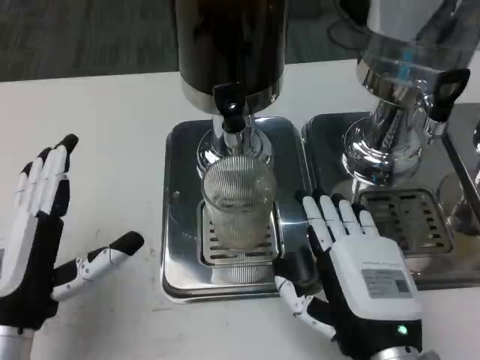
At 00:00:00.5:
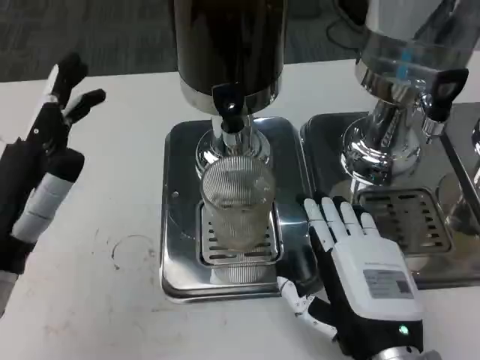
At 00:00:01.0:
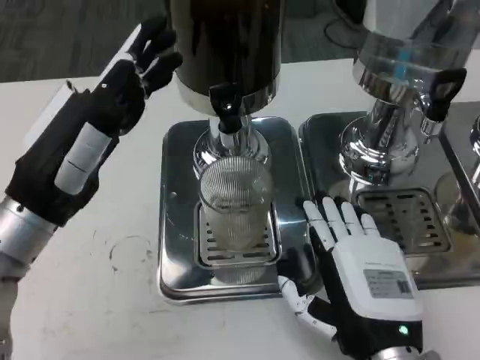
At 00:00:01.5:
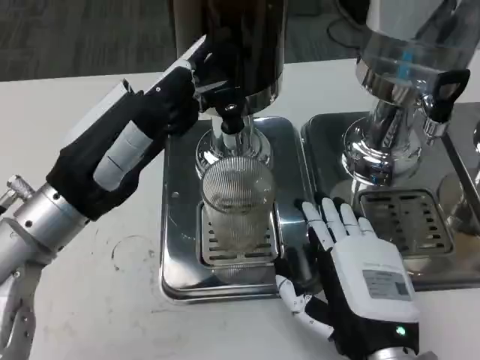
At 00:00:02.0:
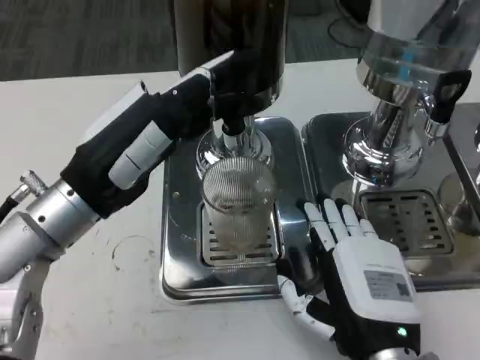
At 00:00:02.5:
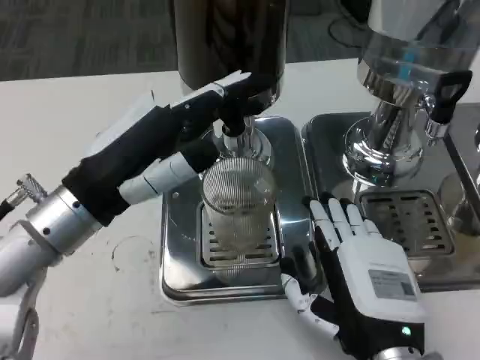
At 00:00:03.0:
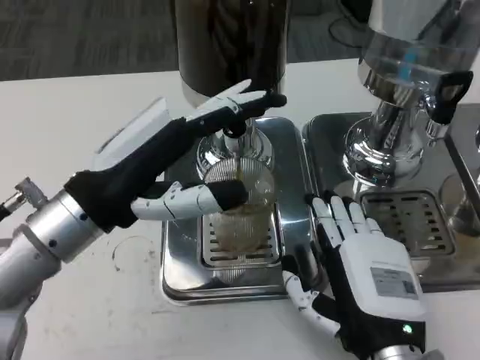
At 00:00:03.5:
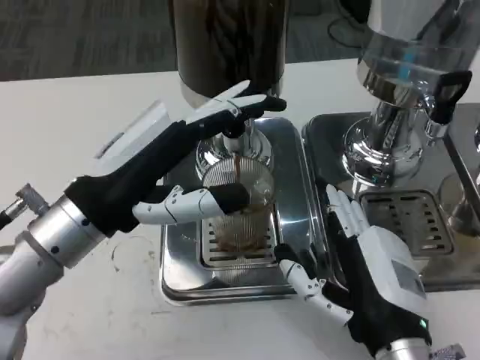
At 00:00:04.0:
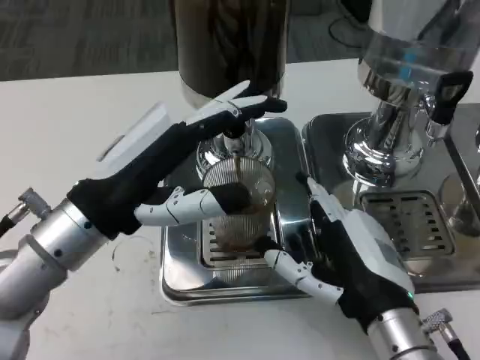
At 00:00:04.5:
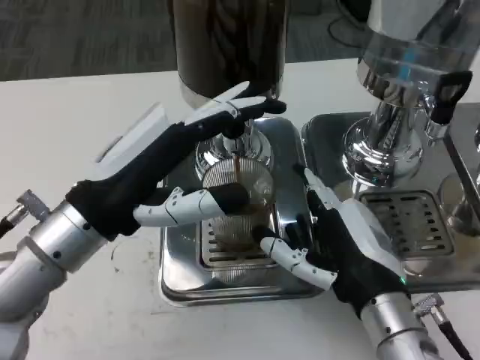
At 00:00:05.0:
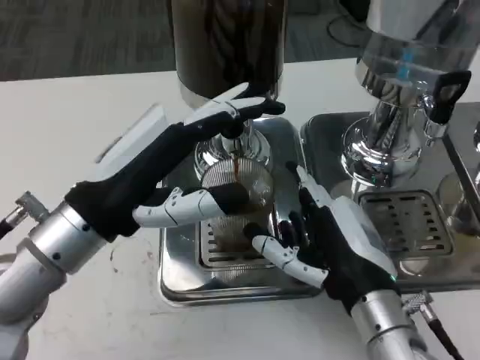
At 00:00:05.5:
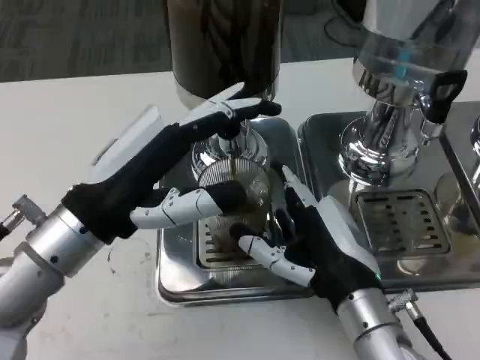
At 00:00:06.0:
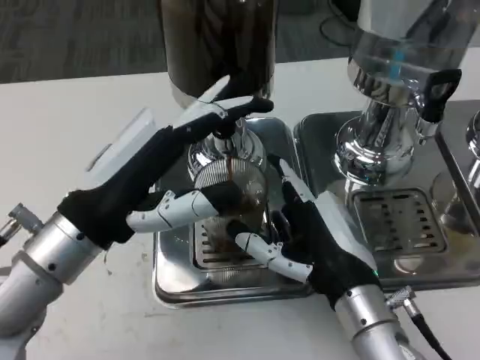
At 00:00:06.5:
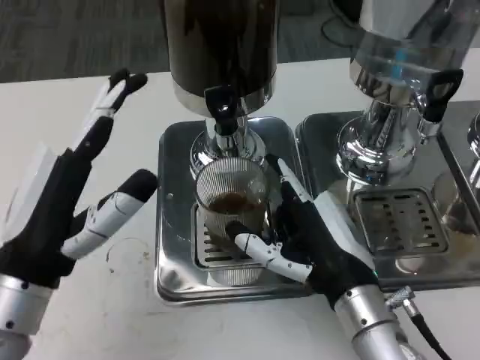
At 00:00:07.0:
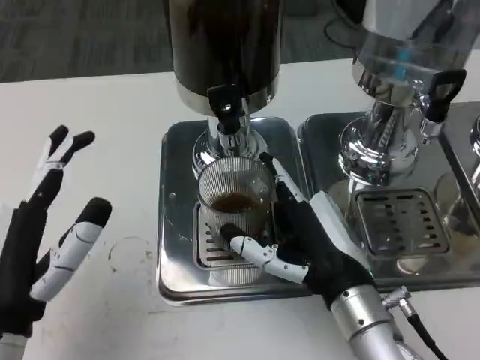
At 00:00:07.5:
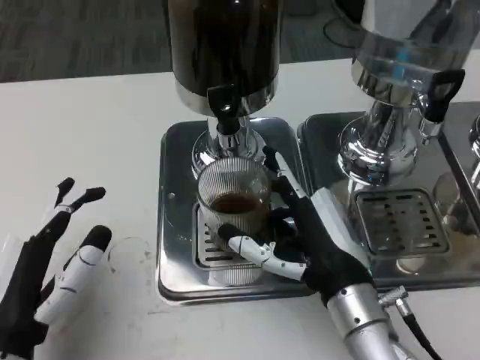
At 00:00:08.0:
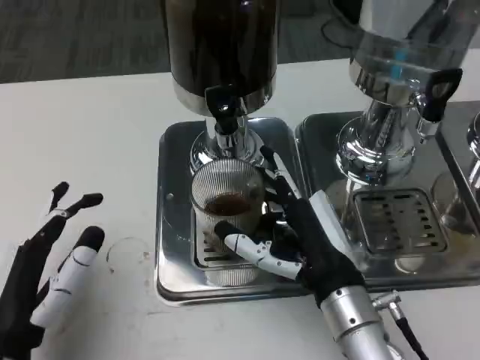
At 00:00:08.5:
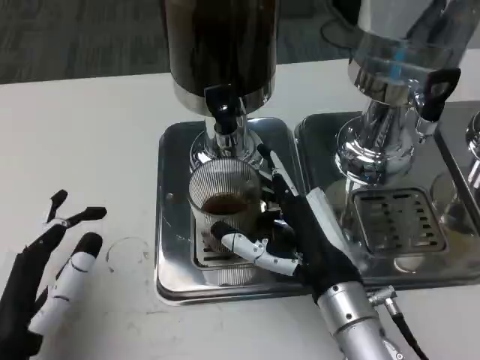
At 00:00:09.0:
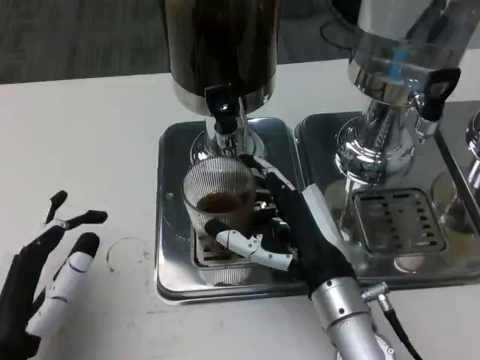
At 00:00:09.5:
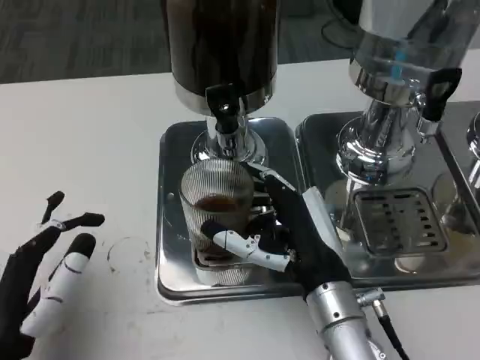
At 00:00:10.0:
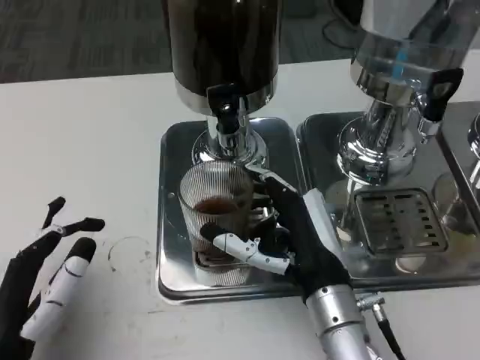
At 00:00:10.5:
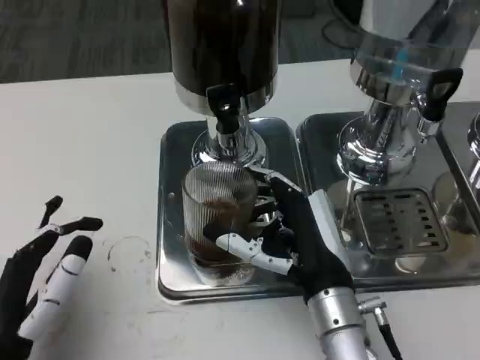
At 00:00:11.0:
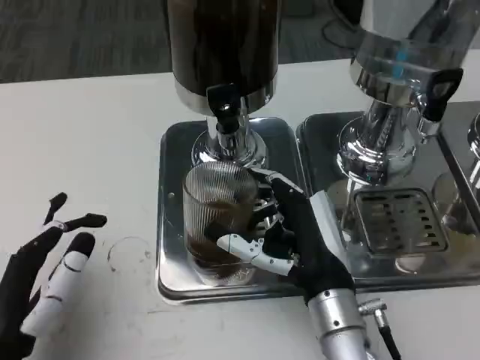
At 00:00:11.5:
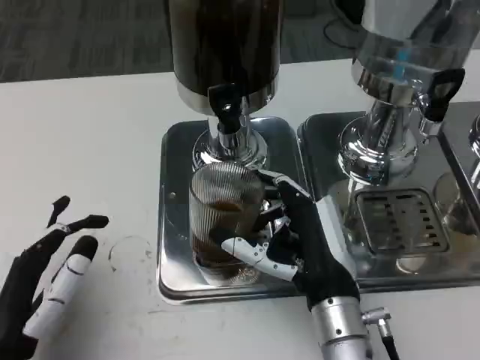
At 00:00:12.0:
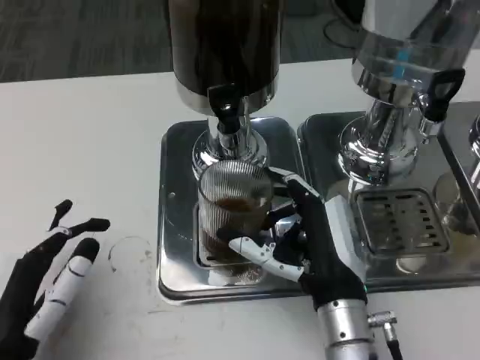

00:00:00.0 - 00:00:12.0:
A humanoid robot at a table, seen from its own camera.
Task of the whole recording: Grasp the cup under the faucet to collect the drink, then remove the cup.
00:00:00.0 - 00:00:02.0: The left hand shifts some 15 cm upward and forward.
00:00:06.0 - 00:00:08.0: The left hand travels backward and downward by roughly 15 cm.
00:00:08.0 - 00:00:12.0: The hands stay close to where they were, moving slightly.

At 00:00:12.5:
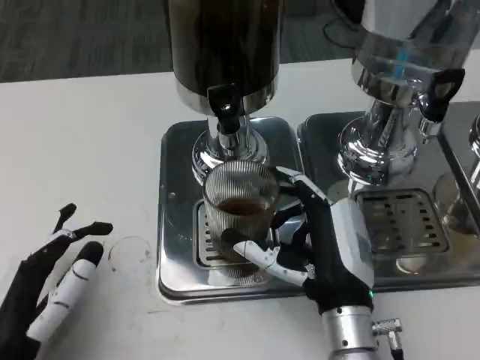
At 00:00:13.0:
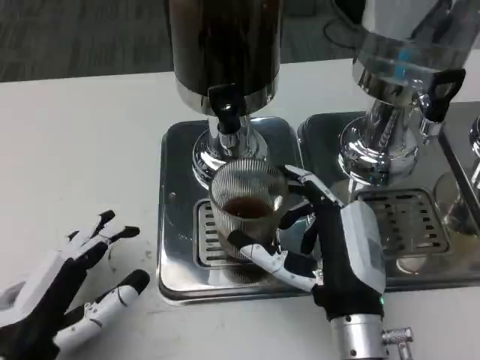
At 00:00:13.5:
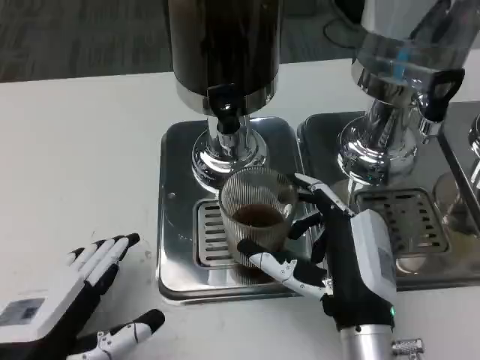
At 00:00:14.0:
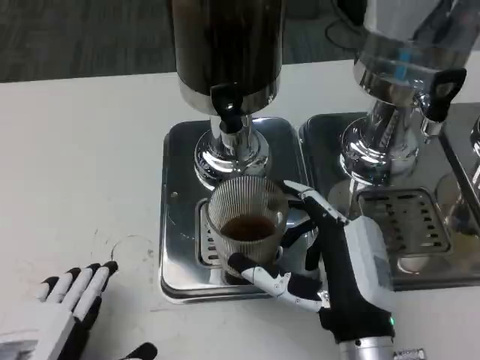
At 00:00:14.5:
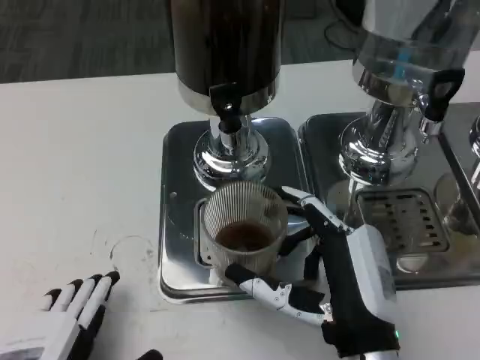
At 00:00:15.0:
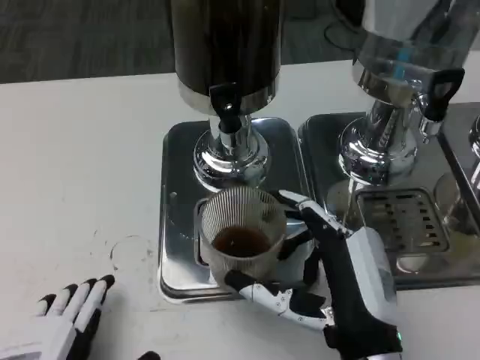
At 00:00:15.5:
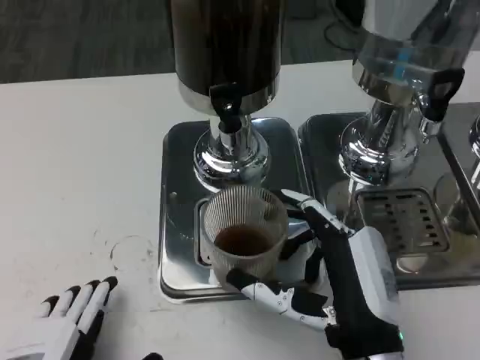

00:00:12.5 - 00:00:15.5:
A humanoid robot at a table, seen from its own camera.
Task of the whole recording: Grasp the cup under the faucet to collect the drink, then remove the cup.
00:00:12.5 - 00:00:14.0: The left hand changes place by some 5 cm.
00:00:14.0 - 00:00:15.5: There are only small adjustments of the hands.

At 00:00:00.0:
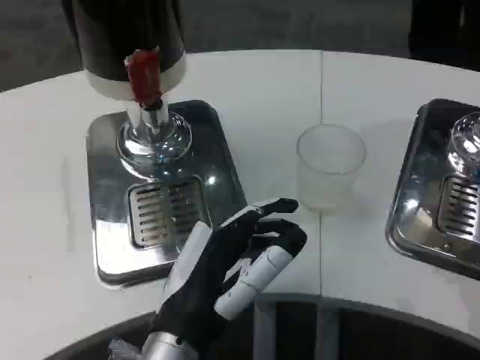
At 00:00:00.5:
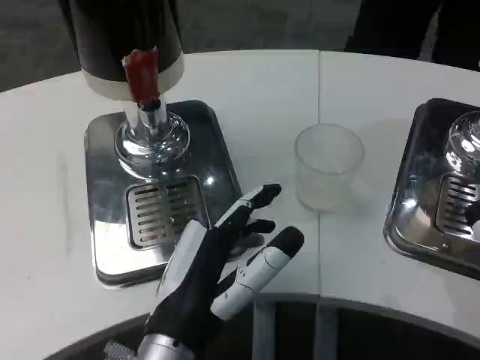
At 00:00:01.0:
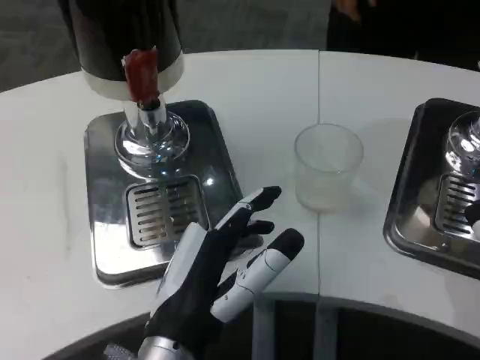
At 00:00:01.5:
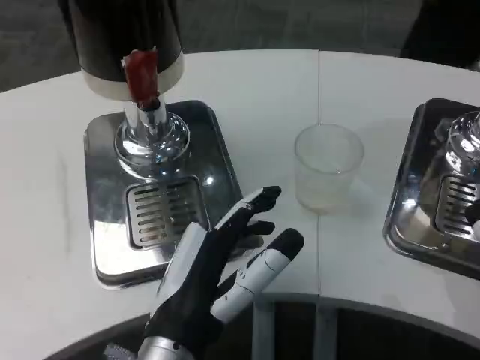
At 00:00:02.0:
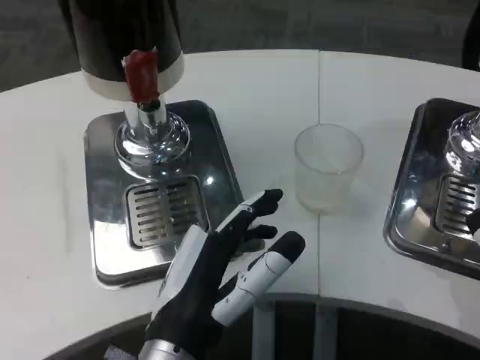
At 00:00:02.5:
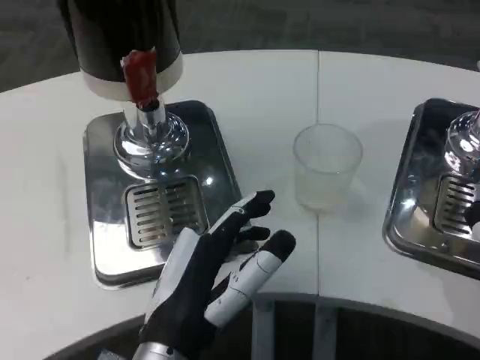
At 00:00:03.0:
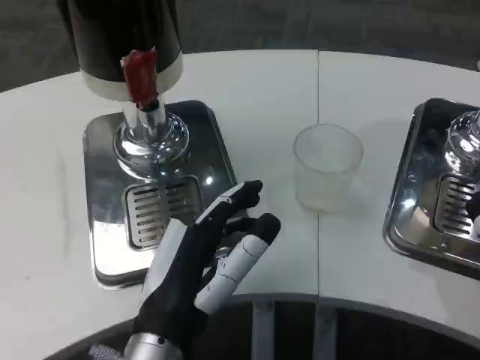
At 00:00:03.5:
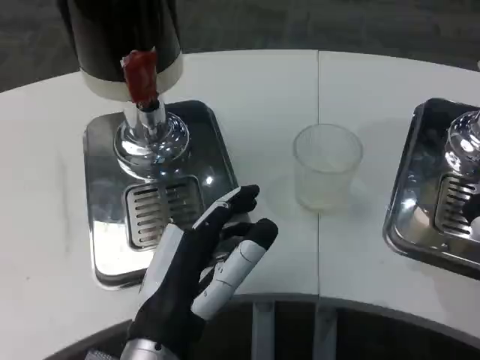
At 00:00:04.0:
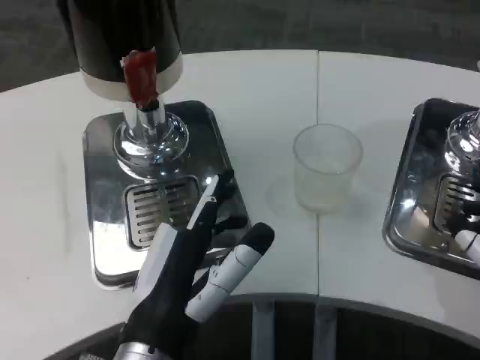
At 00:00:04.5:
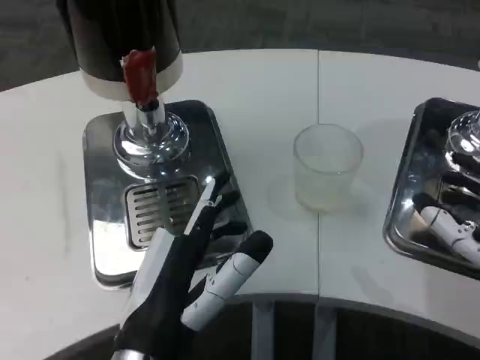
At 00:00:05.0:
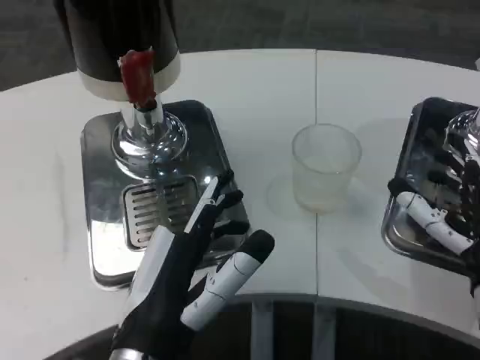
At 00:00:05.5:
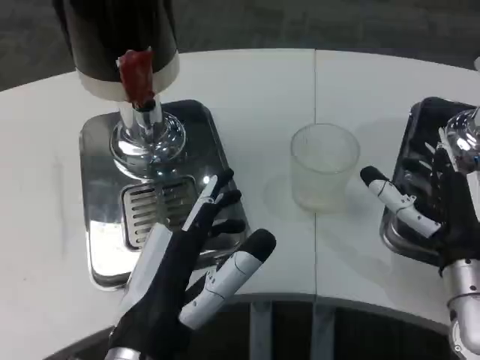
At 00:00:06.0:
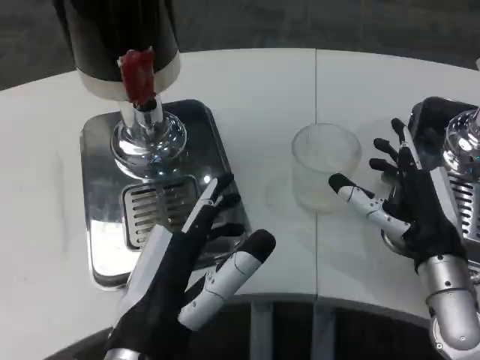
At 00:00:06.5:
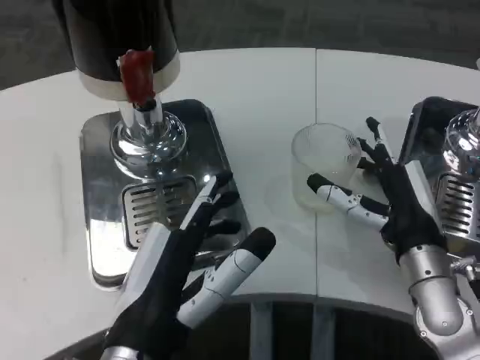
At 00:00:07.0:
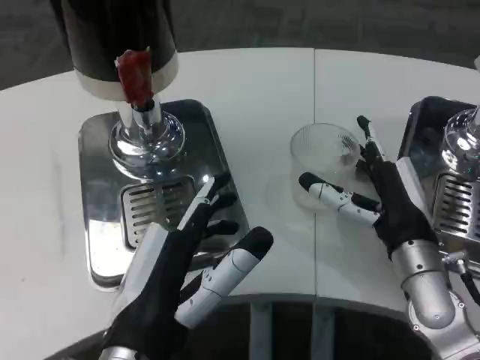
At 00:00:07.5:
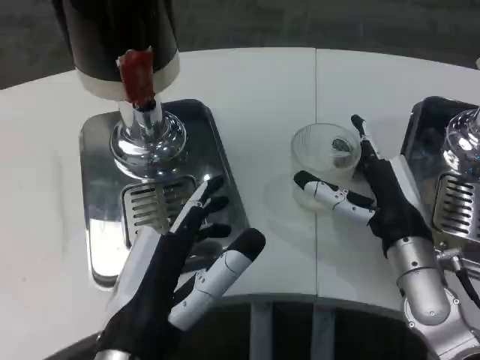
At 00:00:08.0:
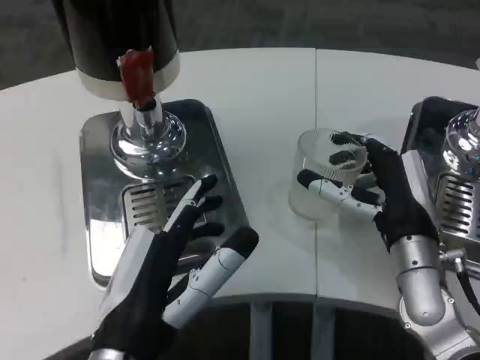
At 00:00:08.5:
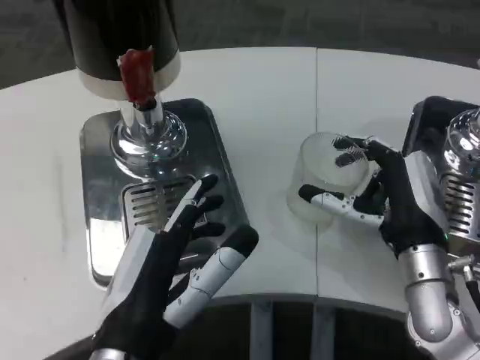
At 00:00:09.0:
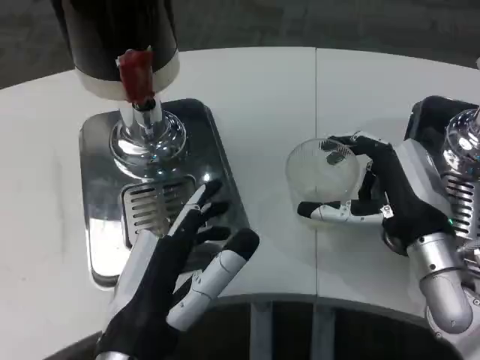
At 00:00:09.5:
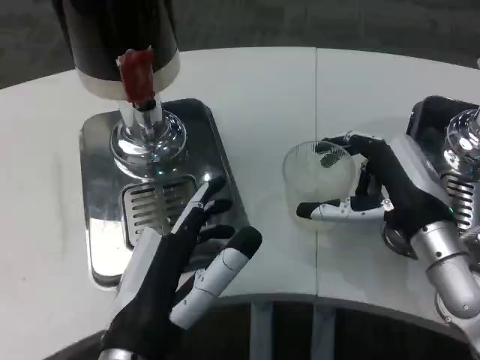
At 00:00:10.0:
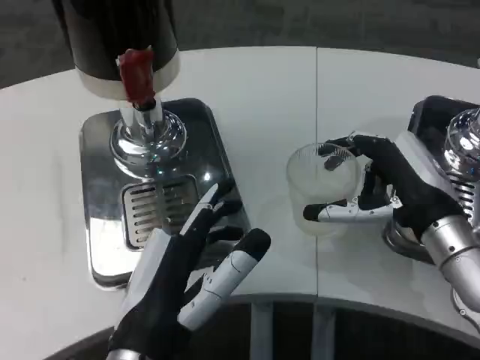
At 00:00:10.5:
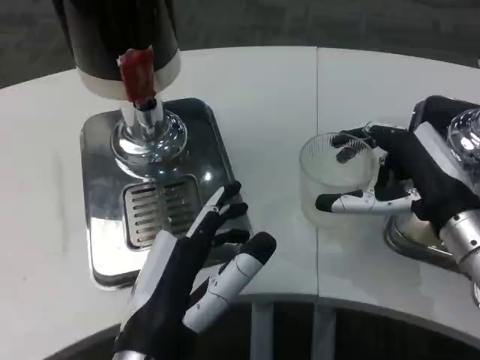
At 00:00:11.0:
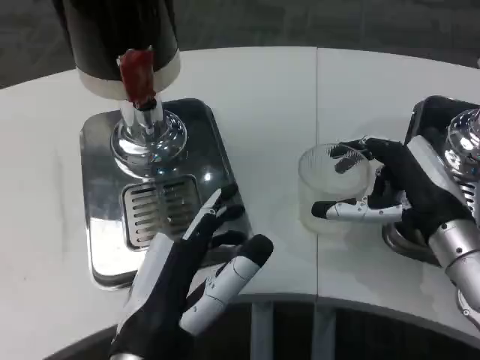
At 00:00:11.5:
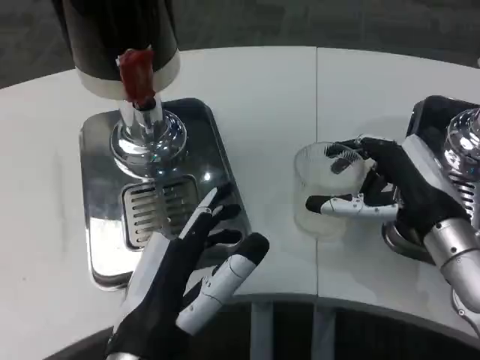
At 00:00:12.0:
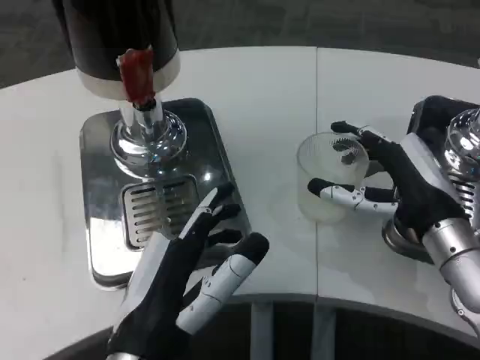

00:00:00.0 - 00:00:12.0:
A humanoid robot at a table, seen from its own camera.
Task of the whole recording: Grasp the cup under the faucet to collect the drink, then remove the cup.
00:00:00.0 - 00:00:02.0: Both hands stay put.
00:00:02.0 - 00:00:04.0: The hands stay close to where they were, moving slightly.
00:00:04.0 - 00:00:06.0: The right hand heads forward and to the left, covering about 15 cm.
00:00:06.0 - 00:00:08.0: The hands stay close to where they were, moving slightly.
00:00:08.0 - 00:00:10.0: The right hand shifts by about 5 cm.
00:00:10.0 - 00:00:12.0: The hands move only a little.
